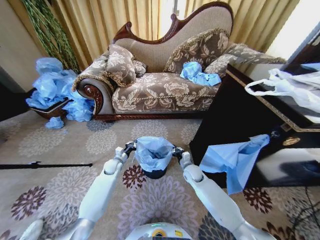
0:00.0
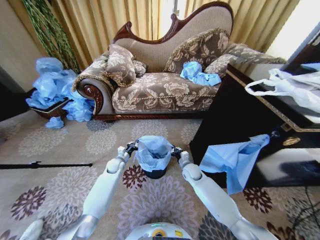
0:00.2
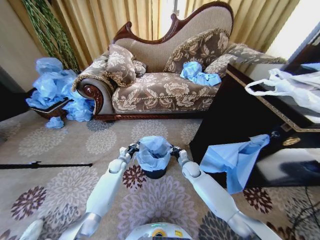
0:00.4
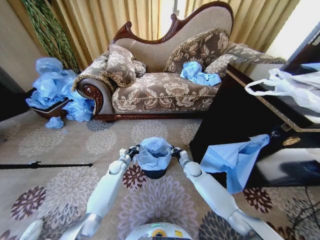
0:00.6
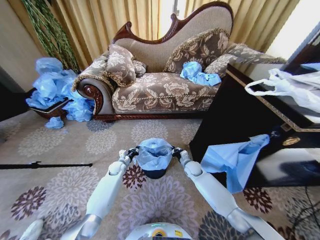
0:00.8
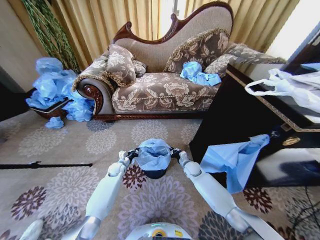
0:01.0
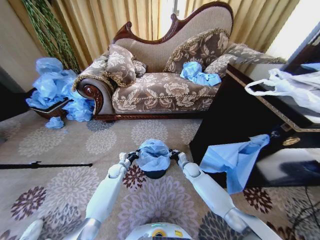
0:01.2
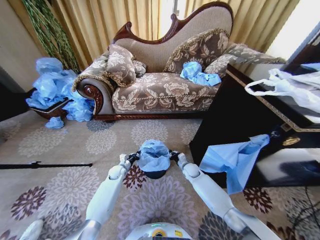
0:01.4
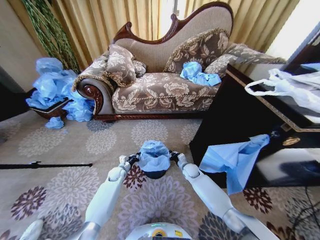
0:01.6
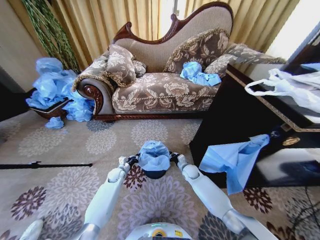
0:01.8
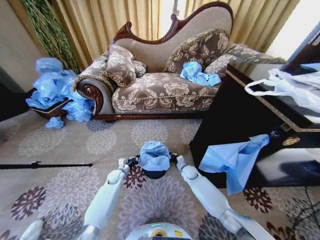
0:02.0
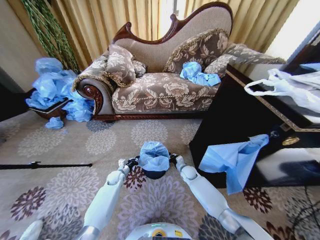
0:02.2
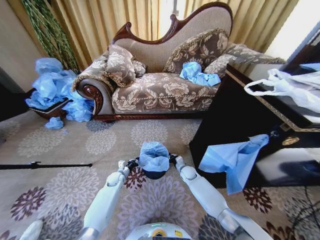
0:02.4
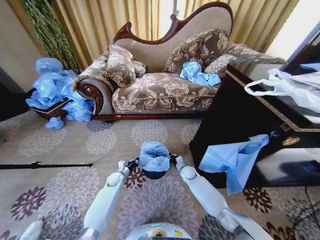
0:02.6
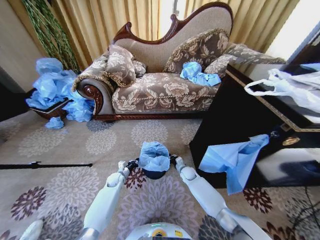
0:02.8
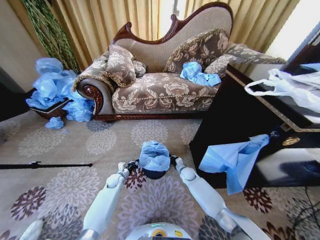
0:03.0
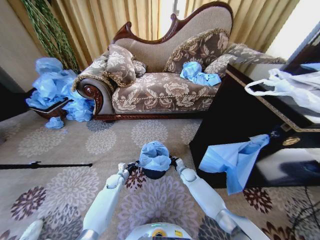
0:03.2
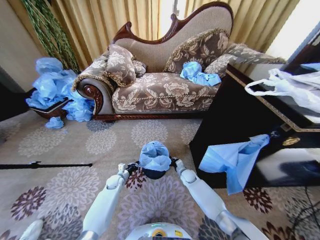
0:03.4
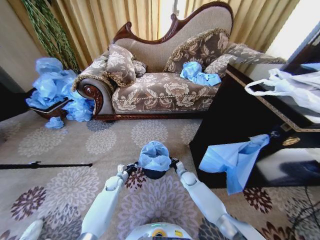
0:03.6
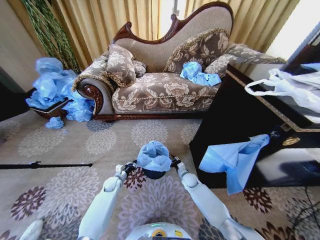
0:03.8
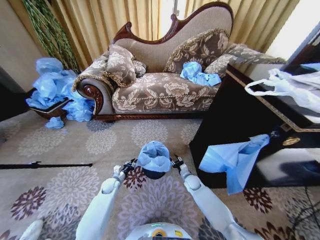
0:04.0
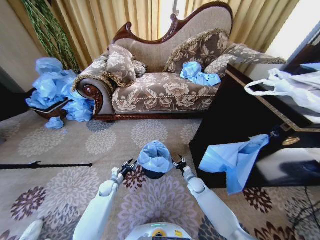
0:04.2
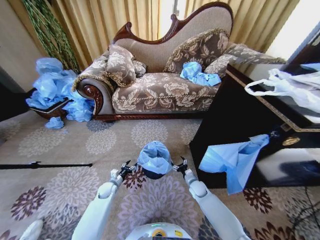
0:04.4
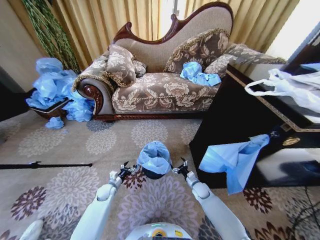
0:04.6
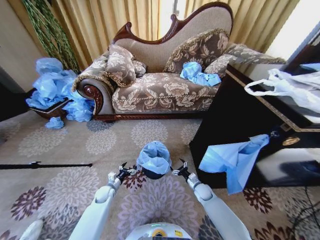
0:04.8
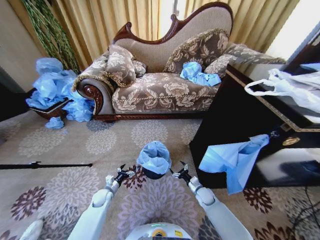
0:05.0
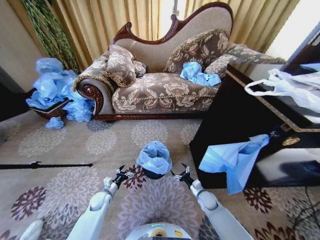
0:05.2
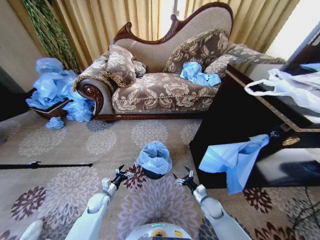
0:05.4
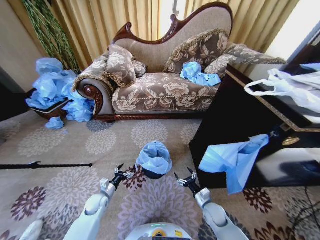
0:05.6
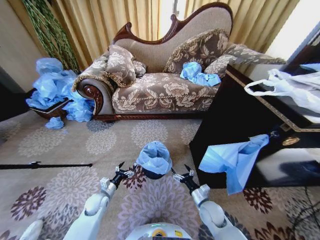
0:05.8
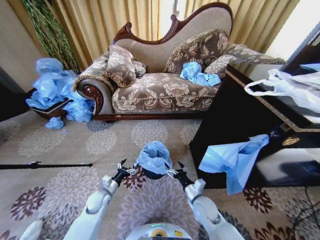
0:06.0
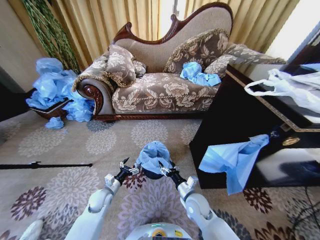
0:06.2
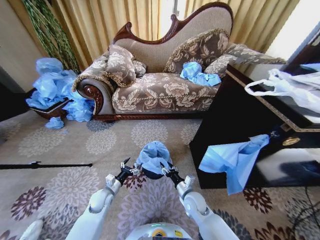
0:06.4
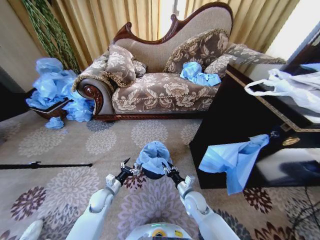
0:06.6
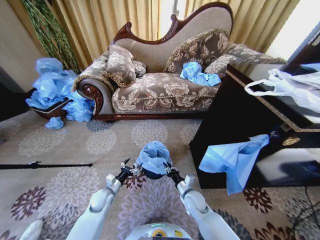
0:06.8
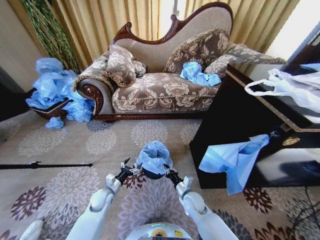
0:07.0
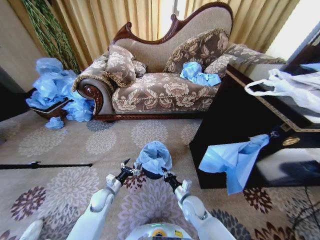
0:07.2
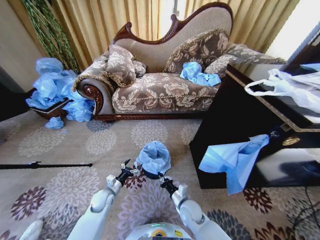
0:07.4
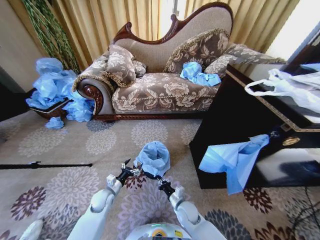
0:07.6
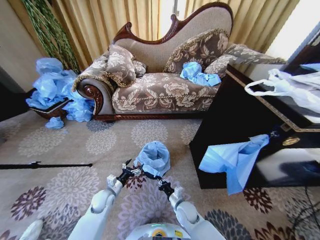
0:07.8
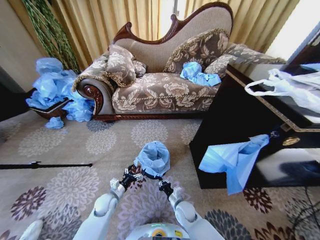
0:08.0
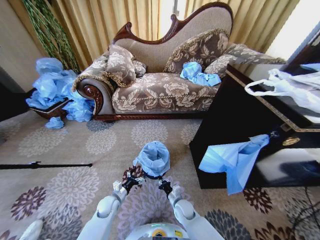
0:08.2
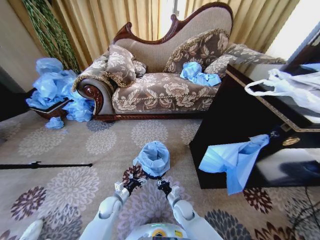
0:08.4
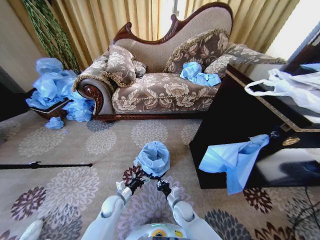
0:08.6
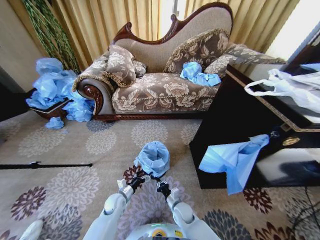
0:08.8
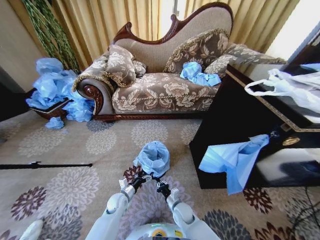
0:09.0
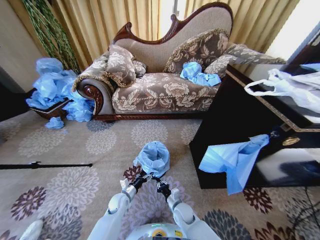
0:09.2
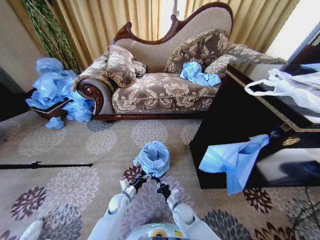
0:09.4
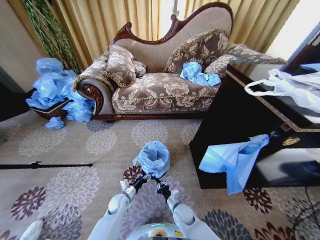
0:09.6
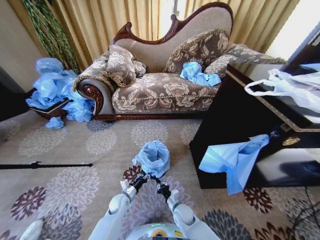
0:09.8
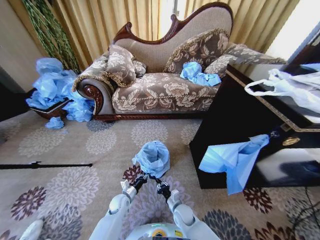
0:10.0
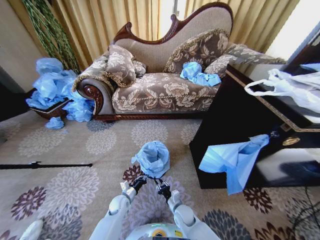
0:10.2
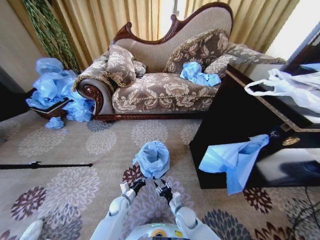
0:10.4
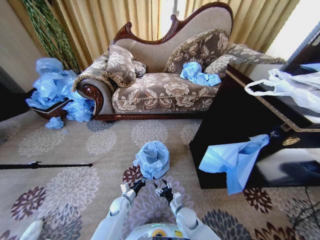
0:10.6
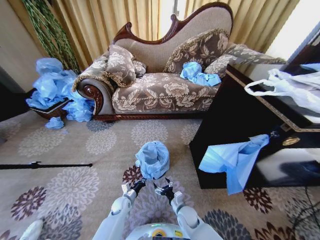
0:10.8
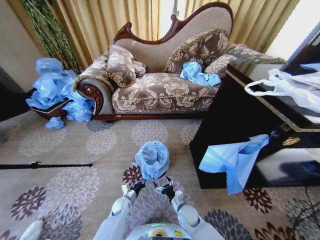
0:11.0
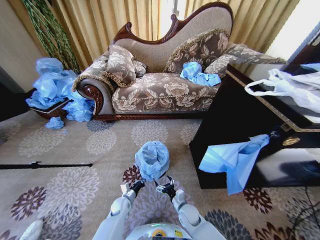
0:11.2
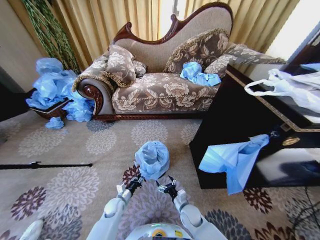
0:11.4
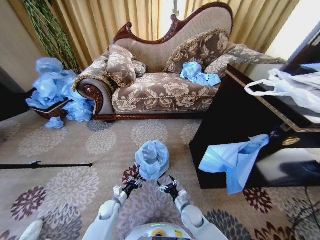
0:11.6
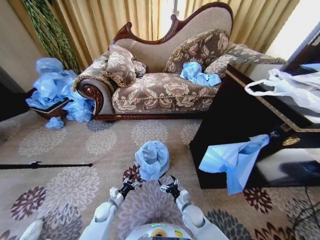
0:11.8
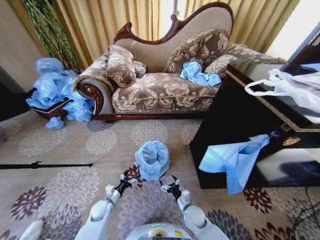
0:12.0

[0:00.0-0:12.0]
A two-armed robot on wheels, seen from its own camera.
Task of the whole recording: Place a garbage bag over the trash bin.
0:00.0 to 0:01.6: The grippers both shift downward by some 5 cm.
0:01.6 to 0:03.0: The grippers move only a little.
0:03.0 to 0:04.4: The left gripper goes some 5 cm backward, and opens its fingers. The right gripper shifts some 10 cm backward, and opens its fingers.
0:04.4 to 0:06.0: The right gripper travels backward and upward by approximately 15 cm, while the left gripper shifts some 10 cm upward and backward, and opens up.
0:06.0 to 0:07.6: The right gripper is displaced downward and to the left by about 10 cm, and closes.
0:07.6 to 0:09.0: The left gripper goes roughly 5 cm to the right.
0:09.0 to 0:10.4: The right gripper opens up. Meanwhile the left gripper closes up.
0:10.4 to 0:12.0: The right gripper opens up; the left gripper goes approximately 10 cm to the left, and opens its fingers.

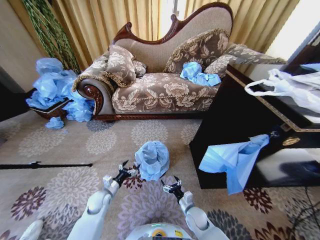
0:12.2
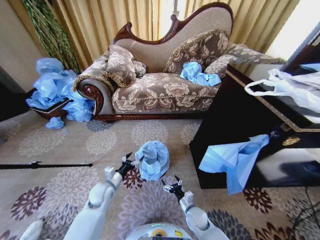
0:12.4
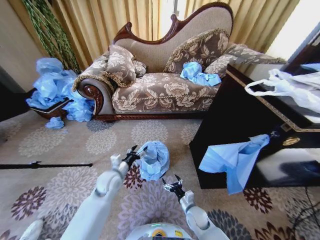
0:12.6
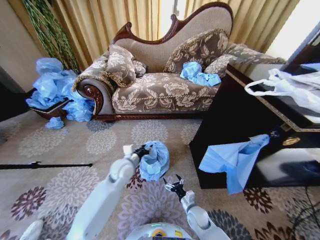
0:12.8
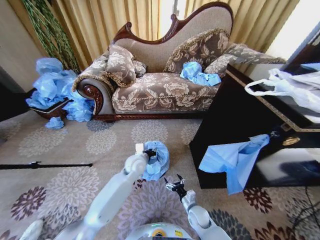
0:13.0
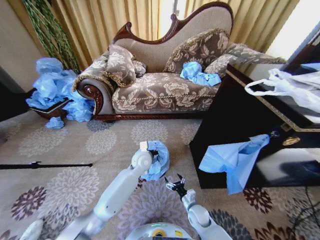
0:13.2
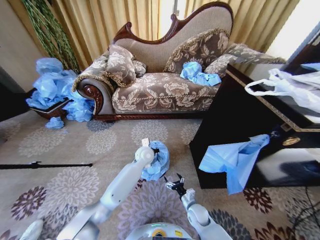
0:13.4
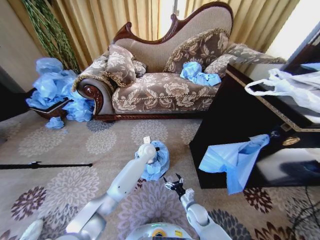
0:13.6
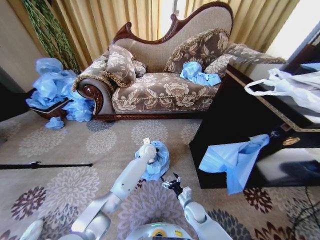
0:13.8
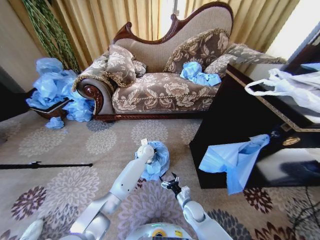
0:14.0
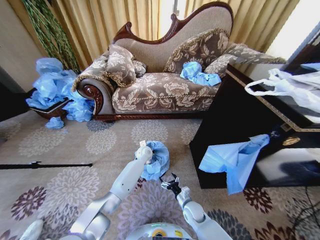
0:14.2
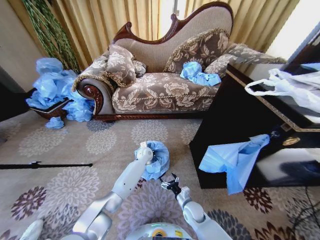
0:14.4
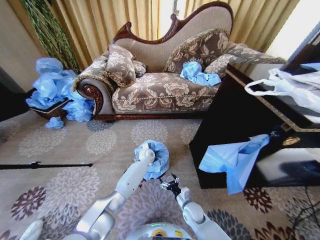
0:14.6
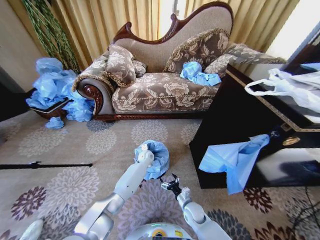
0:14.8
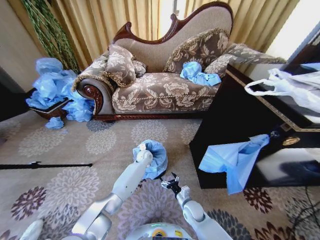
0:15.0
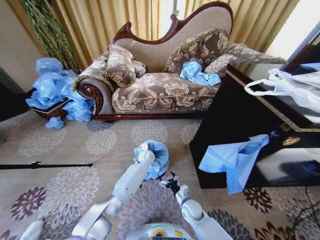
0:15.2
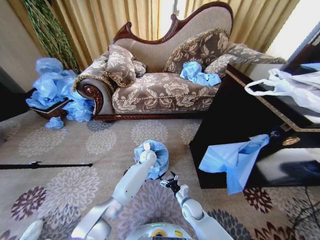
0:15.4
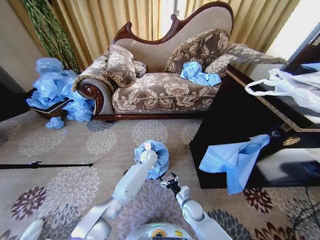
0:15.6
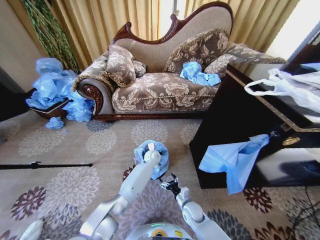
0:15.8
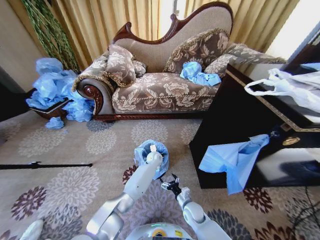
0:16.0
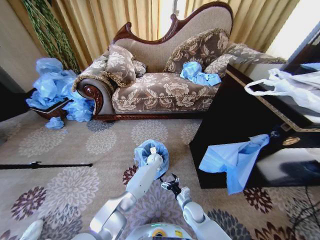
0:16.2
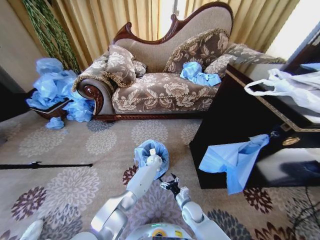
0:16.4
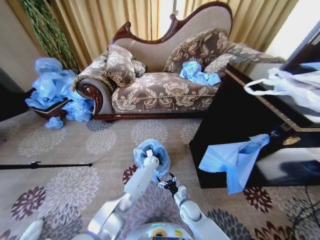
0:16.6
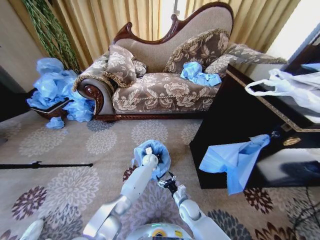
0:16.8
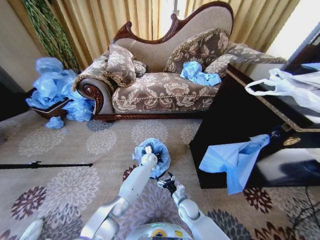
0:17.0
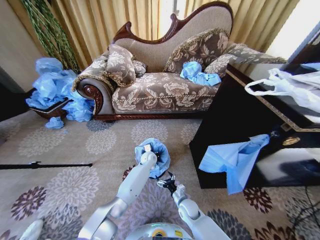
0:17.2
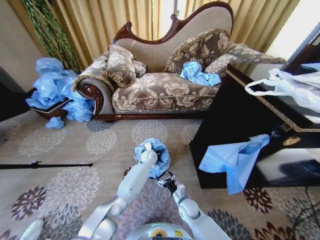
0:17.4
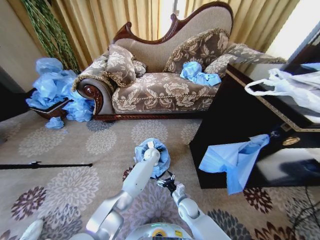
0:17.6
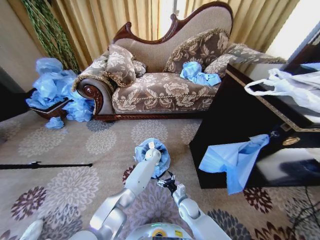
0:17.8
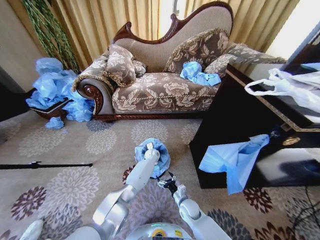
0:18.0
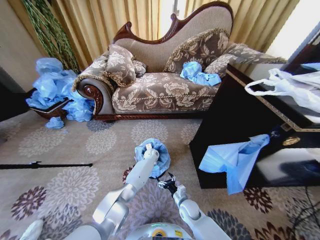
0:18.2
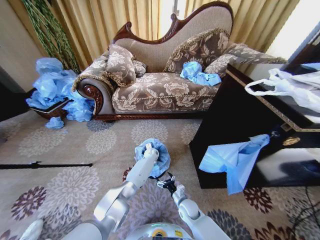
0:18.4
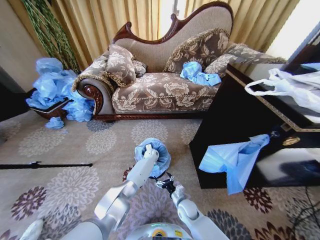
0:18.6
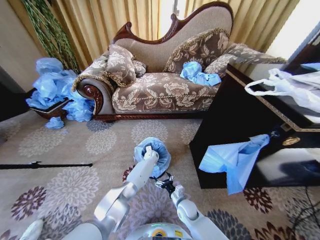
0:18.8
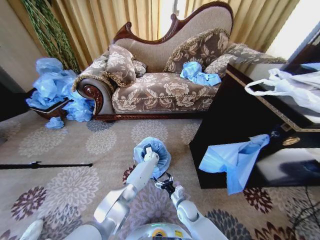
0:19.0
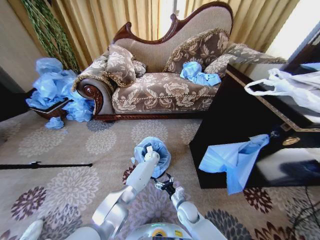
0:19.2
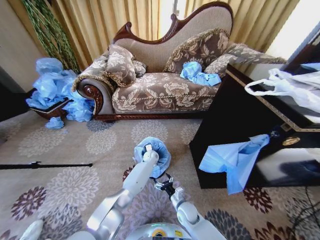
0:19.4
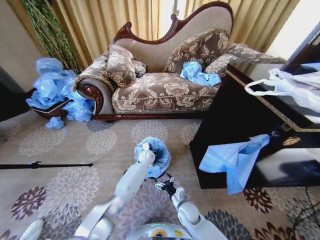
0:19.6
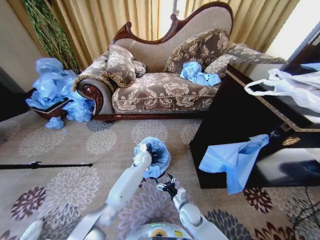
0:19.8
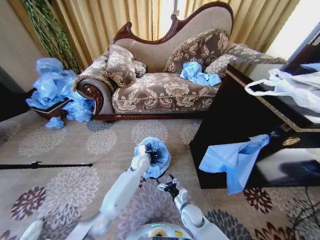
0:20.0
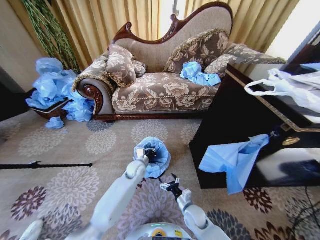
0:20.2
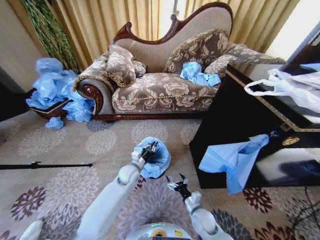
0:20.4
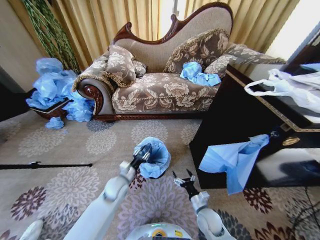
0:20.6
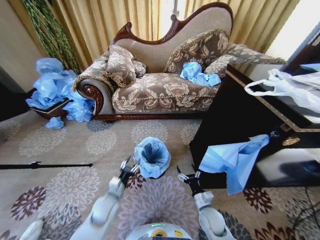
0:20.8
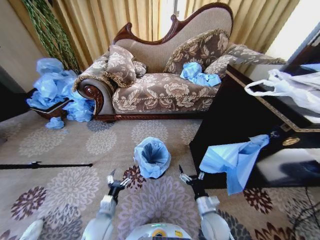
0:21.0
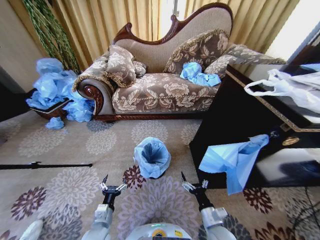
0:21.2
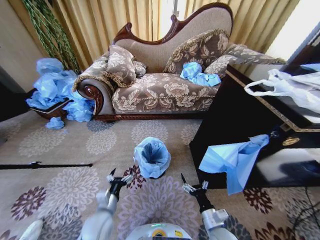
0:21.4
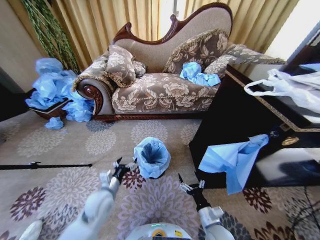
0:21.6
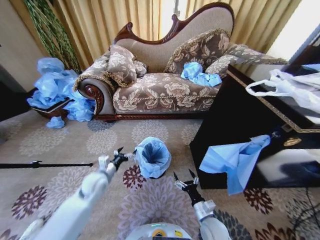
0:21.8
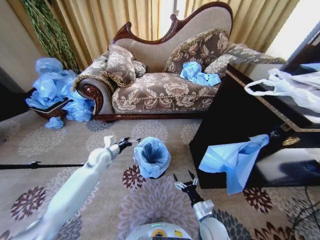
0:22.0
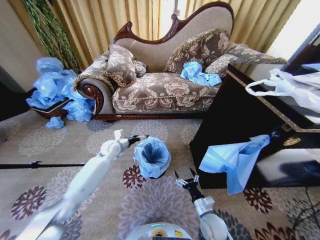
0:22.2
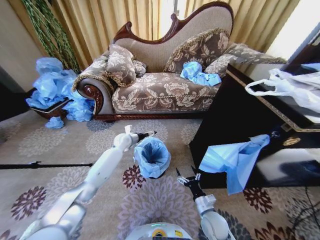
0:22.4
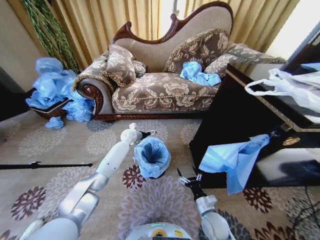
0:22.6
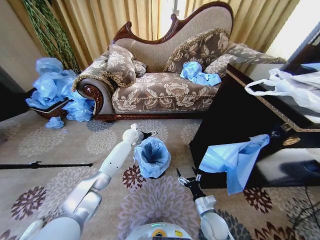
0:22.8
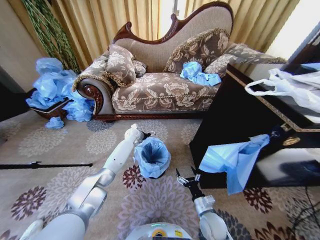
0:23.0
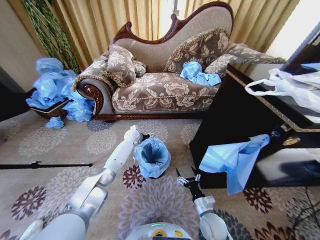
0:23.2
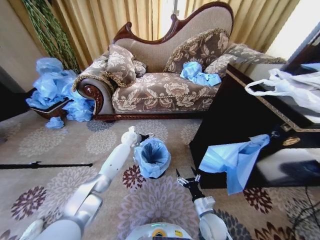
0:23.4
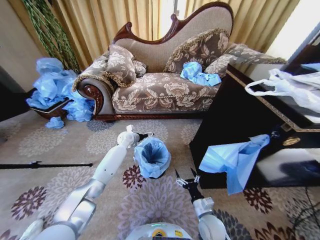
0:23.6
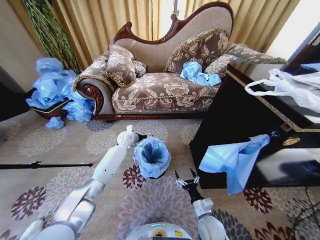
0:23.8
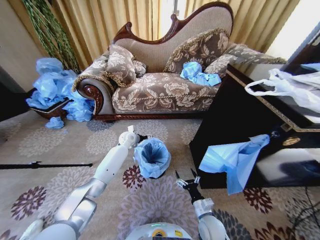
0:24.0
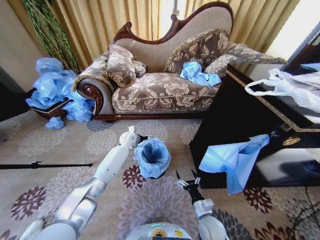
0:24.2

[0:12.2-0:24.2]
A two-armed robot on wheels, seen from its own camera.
Task of the whole recording: Place a garbage bag over the trash bin.
0:12.2 to 0:13.8: The left gripper travels to the right, forward and upward by about 35 cm, and closes.
0:13.8 to 0:15.2: The left gripper is displaced downward by some 5 cm.
0:15.2 to 0:16.6: The left gripper is displaced downward by approximately 5 cm.
0:18.2 to 0:19.8: The left gripper shifts some 10 cm backward and upward.
0:19.8 to 0:21.2: The right gripper moves backward, upward and to the right, about 15 cm, while the left gripper goes some 35 cm backward, and opens its fingers.
0:21.2 to 0:22.6: The left gripper shifts roughly 40 cm forward; the right gripper is displaced forward by roughly 5 cm.
0:22.6 to 0:24.2: The grippers make only small movements.
